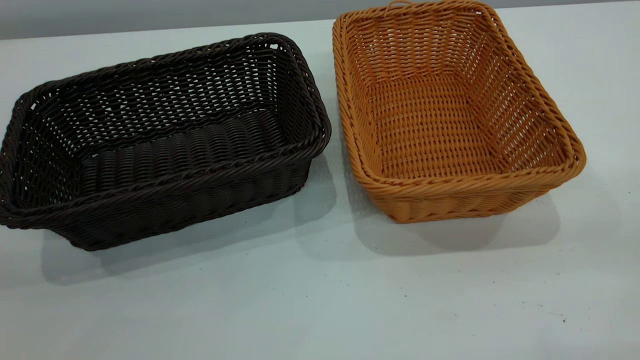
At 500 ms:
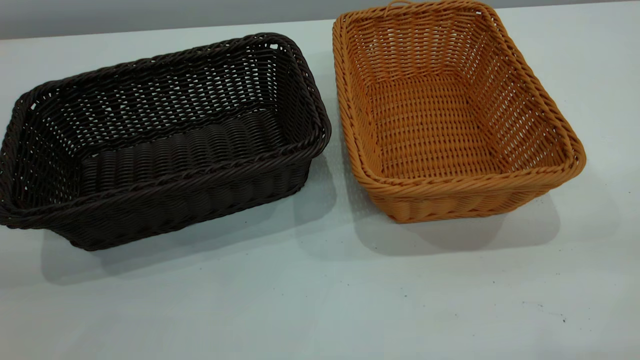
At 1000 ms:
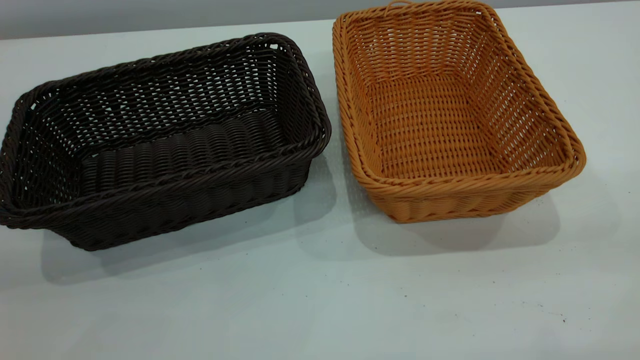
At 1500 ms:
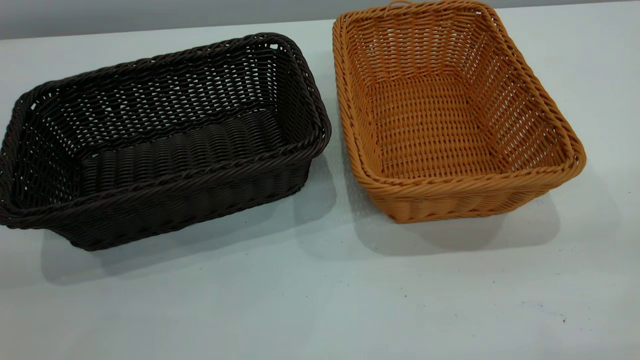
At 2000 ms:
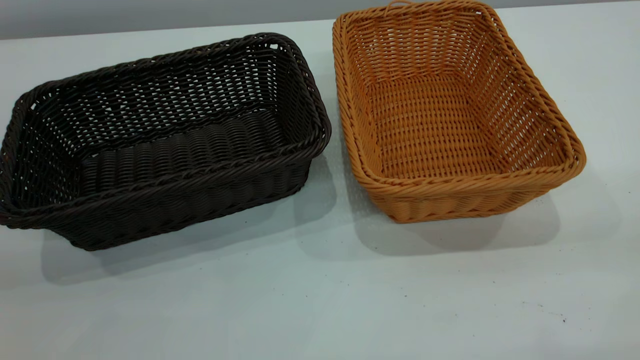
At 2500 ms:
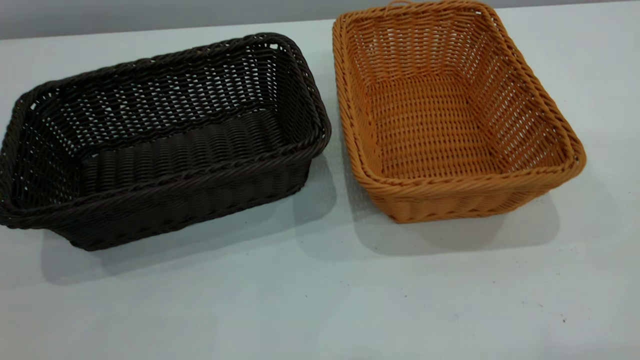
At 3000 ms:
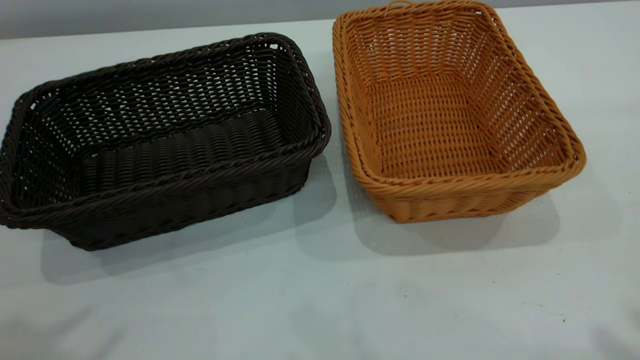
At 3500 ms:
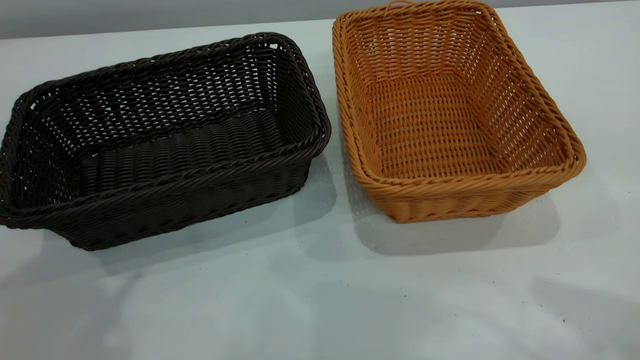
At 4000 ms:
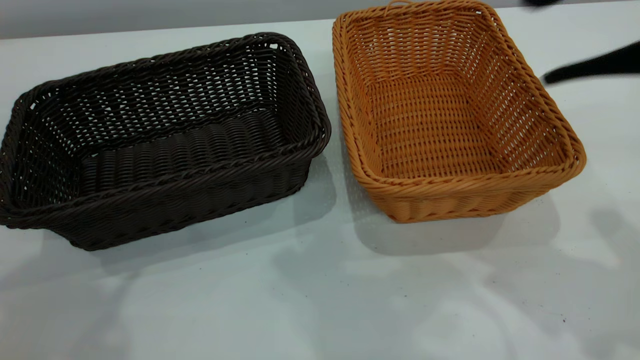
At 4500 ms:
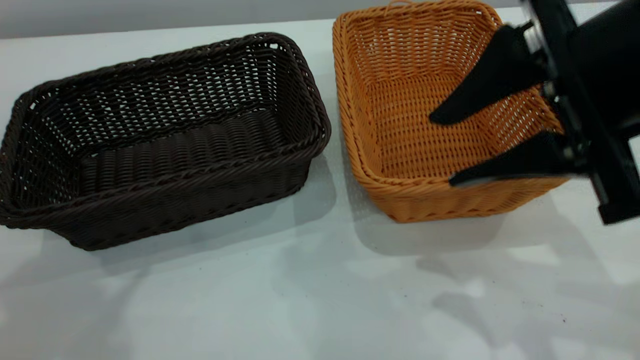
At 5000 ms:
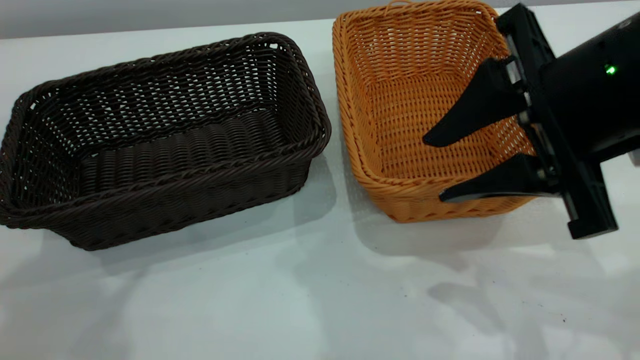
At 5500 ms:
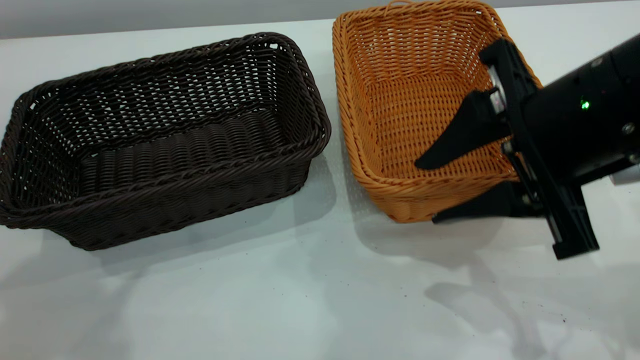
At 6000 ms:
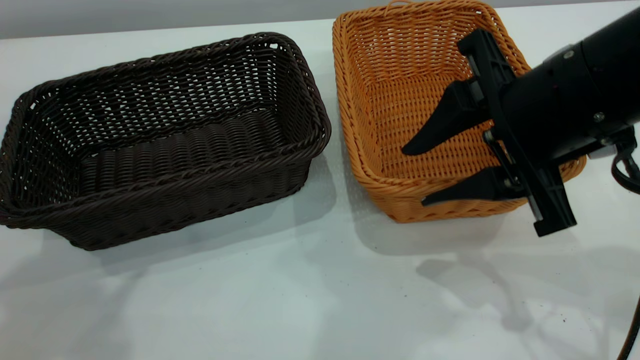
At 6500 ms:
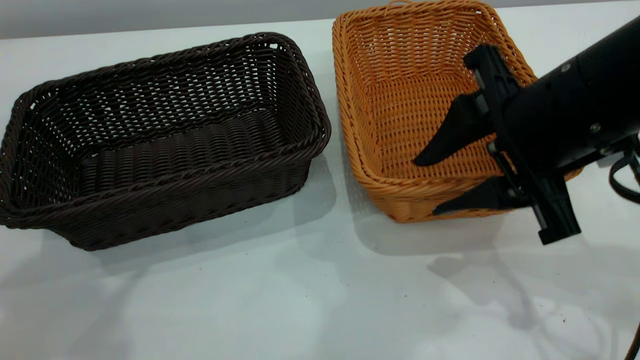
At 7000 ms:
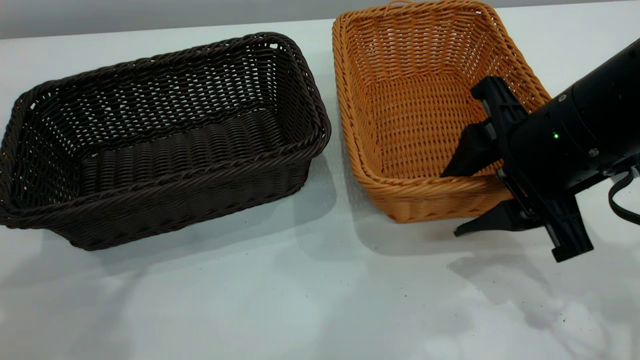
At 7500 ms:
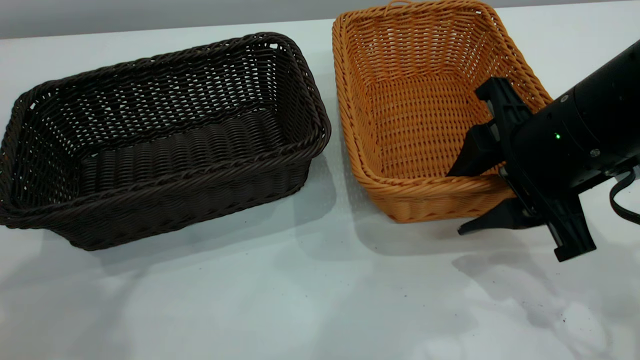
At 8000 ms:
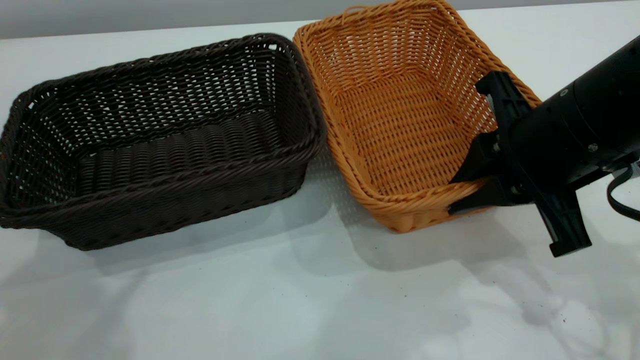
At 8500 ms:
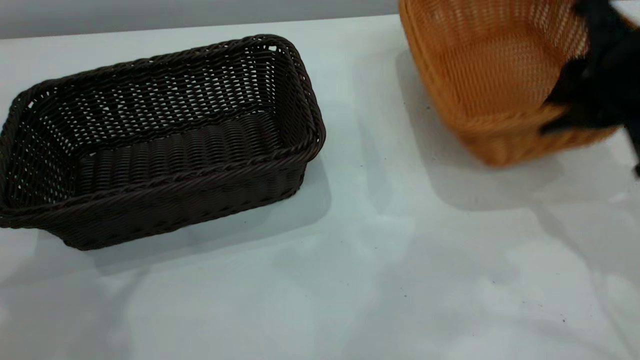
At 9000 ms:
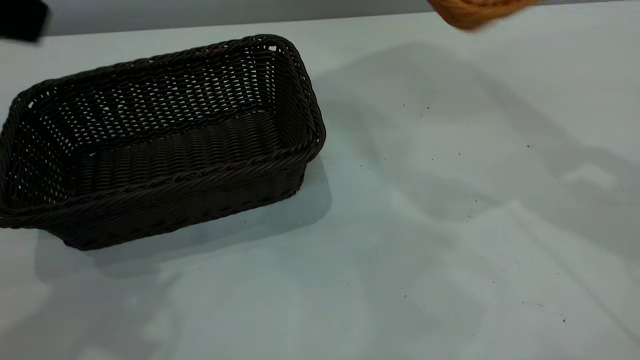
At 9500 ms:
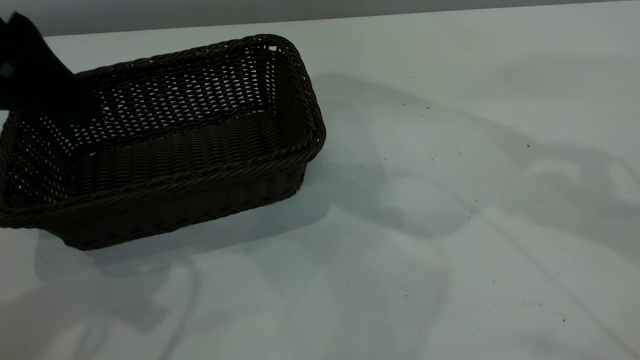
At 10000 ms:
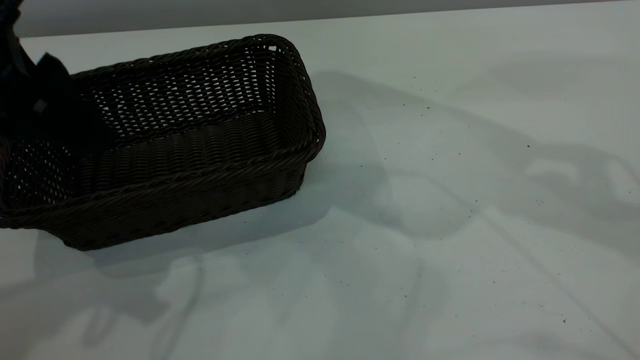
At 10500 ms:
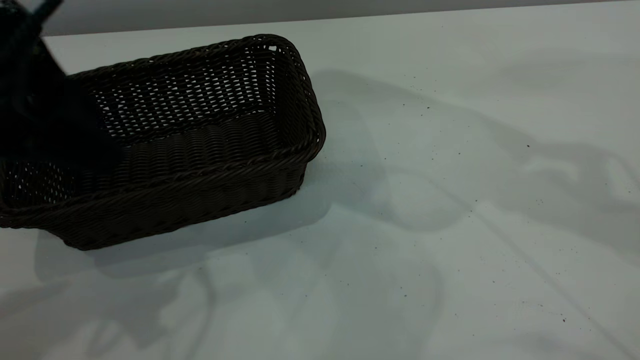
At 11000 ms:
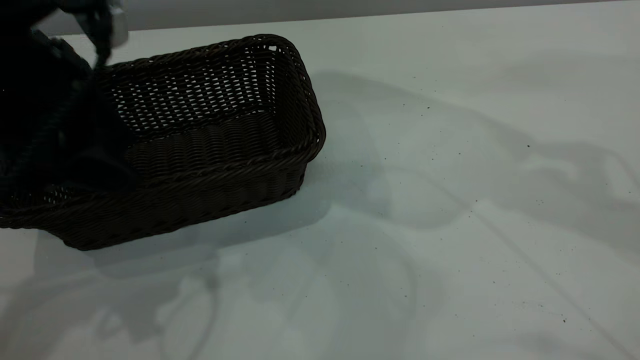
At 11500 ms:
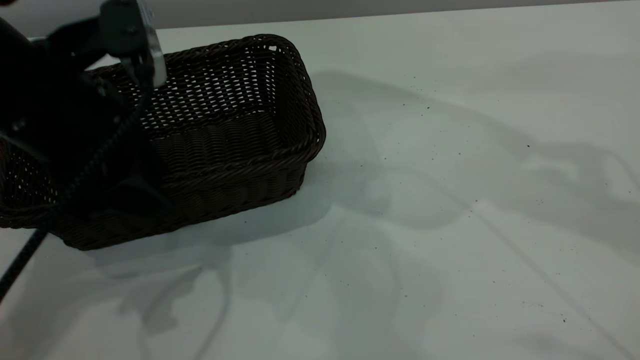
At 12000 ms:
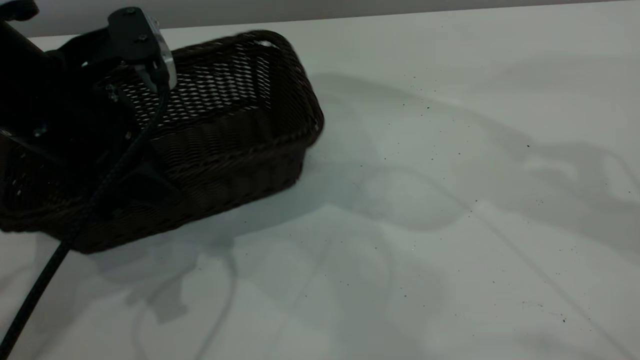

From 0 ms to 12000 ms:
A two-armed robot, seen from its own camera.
Task of the whole recording: the left gripper grasp the black basket and place it in the center of the table, the right gripper grasp the brown basket and place it inside the black one.
Step, from 0 ms to 8500 ms: Pick up the light basket with the right gripper.
From 0 ms to 2000 ms: Both grippers stay put.
From 2000 ms to 4000 ms: The right gripper goes approximately 20 cm forward, and opens.
From 4000 ms to 6000 ms: The right gripper heads downward, covering roughly 10 cm.
From 6000 ms to 8000 ms: The right gripper closes its fingers.
From 8000 ms to 10000 ms: The left gripper is displaced downward and forward by some 15 cm, while the right gripper is displaced upward by approximately 20 cm.
From 10000 ms to 12000 ms: The left gripper is displaced downward by approximately 10 cm, and closes.

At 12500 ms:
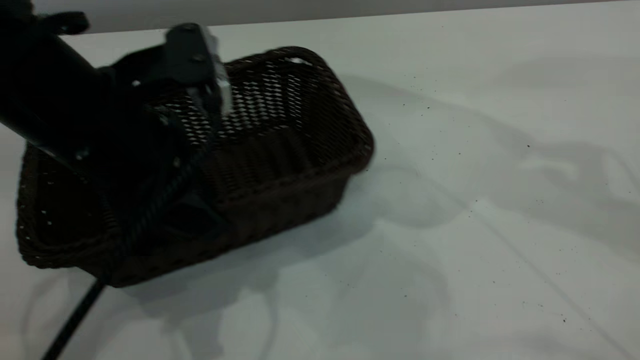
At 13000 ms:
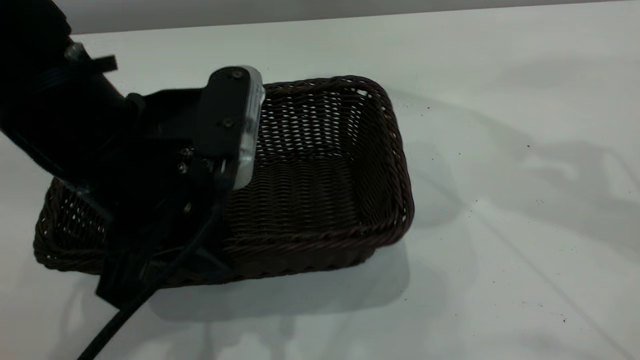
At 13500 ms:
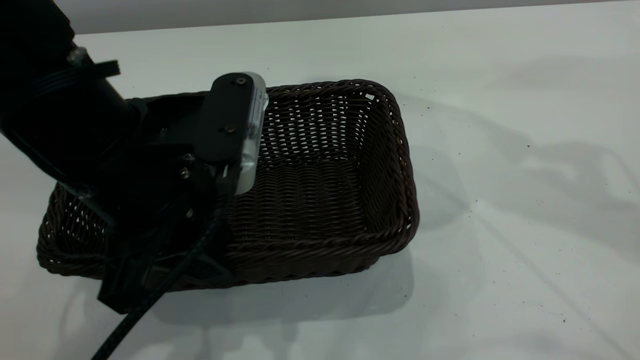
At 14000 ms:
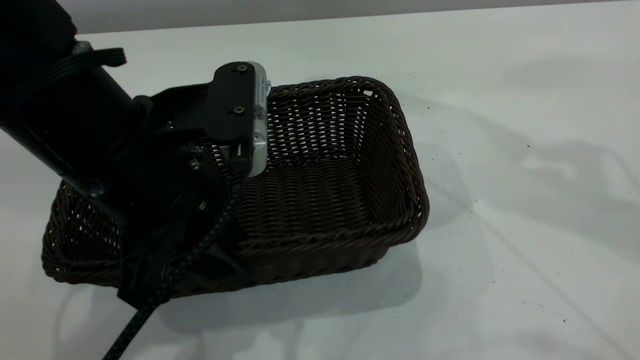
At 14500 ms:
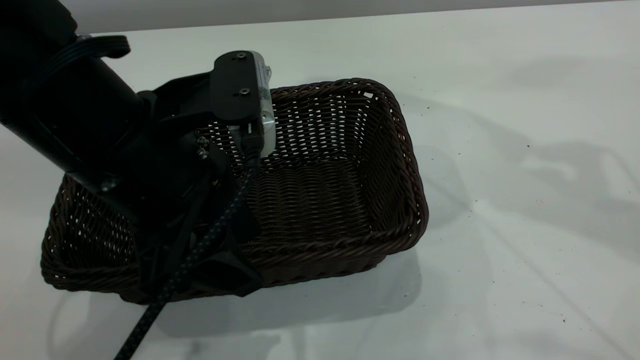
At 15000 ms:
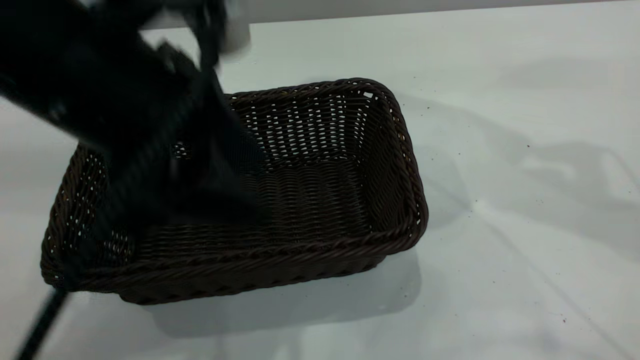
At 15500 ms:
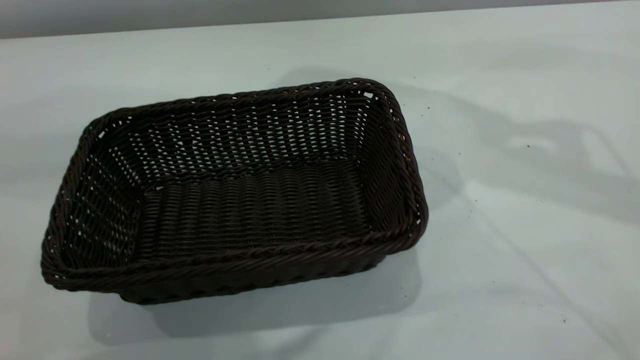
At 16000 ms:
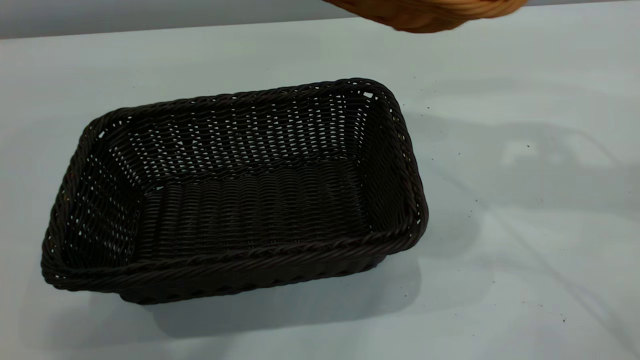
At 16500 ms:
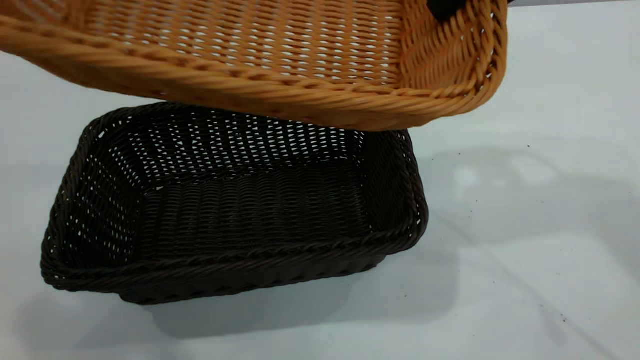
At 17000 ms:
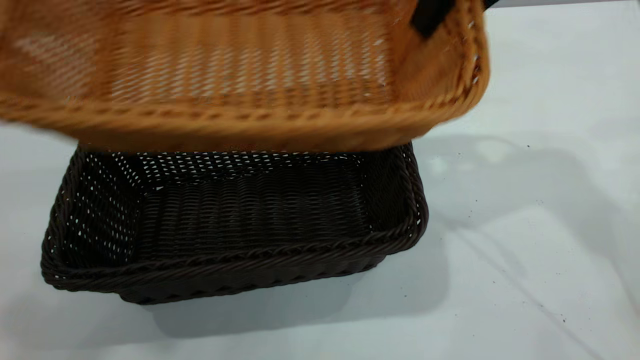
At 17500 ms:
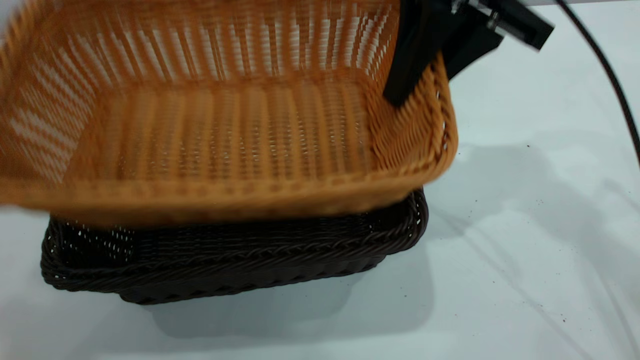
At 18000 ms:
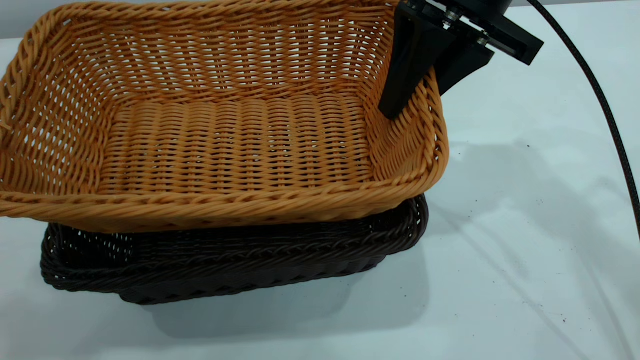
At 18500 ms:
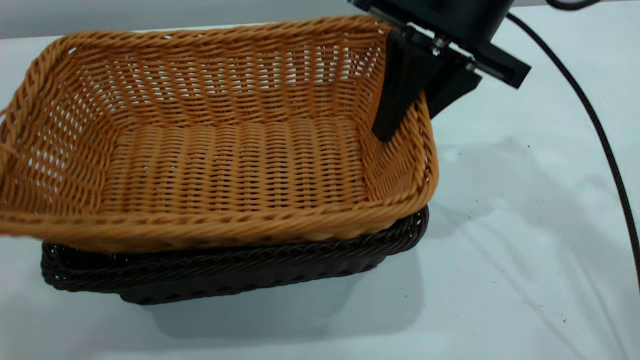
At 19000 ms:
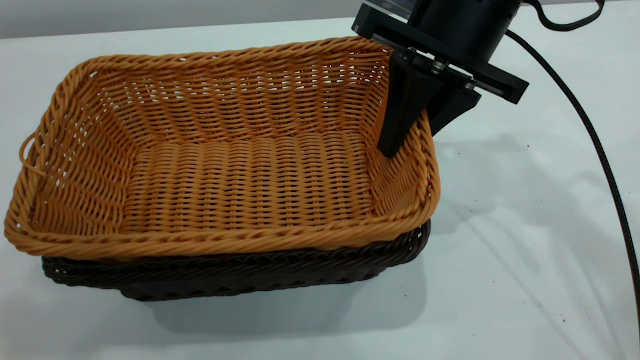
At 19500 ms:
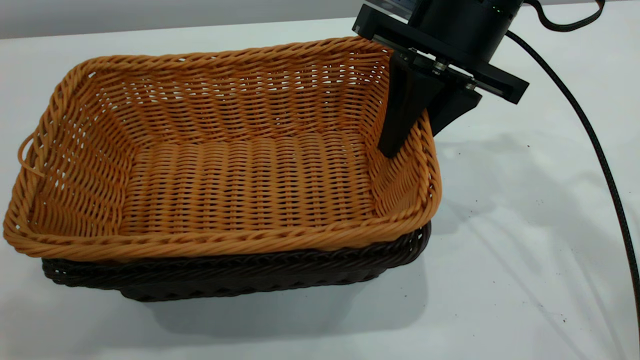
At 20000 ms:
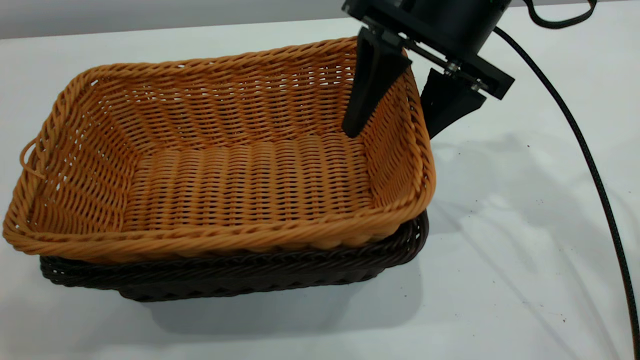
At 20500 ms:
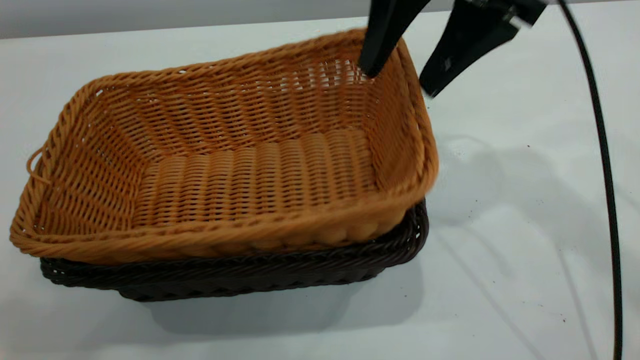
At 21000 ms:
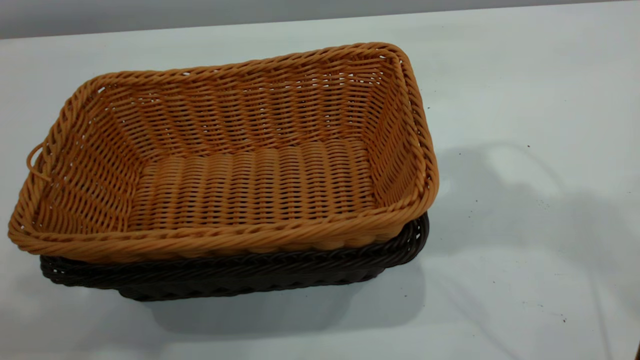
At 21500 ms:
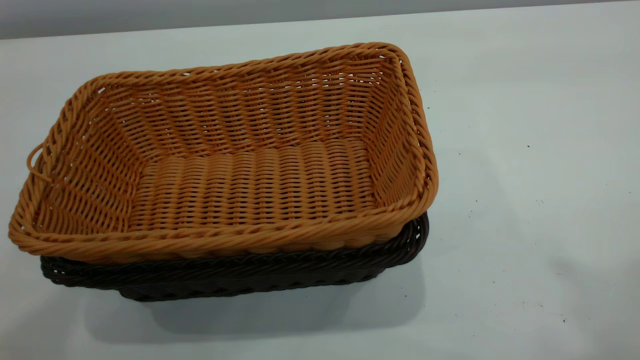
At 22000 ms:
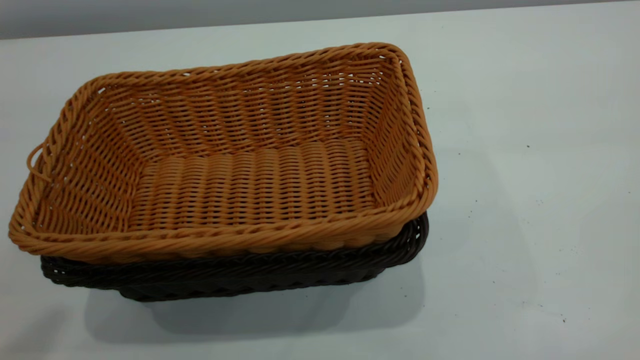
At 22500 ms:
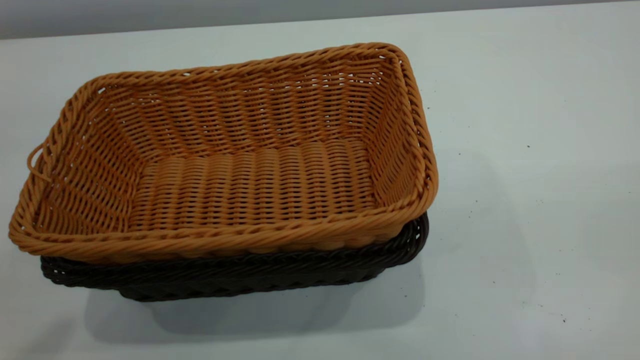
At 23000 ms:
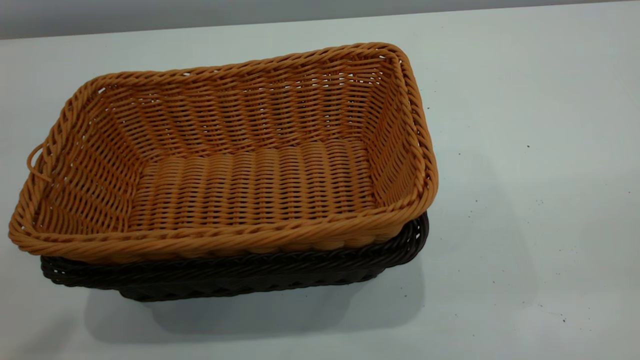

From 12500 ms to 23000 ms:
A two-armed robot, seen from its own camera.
Task of the whole recording: the left gripper grasp the black basket and place it in the center of the table, the right gripper grasp the brown basket and place it inside the black one.
Step, from 12500 ms to 15000 ms: Move the dark basket to the center of view.
Step, from 15500 ms to 20500 ms: Place the light basket on the dark basket.
From 12500 ms to 14500 ms: The left gripper opens.
From 14500 ms to 16500 ms: The left gripper travels upward by about 30 cm. The right gripper goes some 5 cm to the left.
From 16500 ms to 19000 ms: The right gripper heads downward and to the left, covering about 10 cm.
From 19000 ms to 21000 ms: The right gripper goes approximately 20 cm upward, and opens its fingers.
